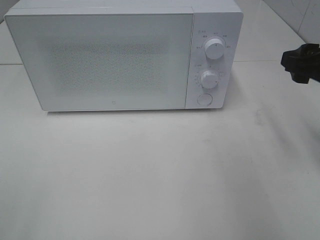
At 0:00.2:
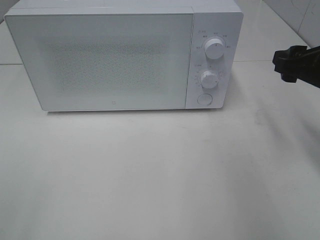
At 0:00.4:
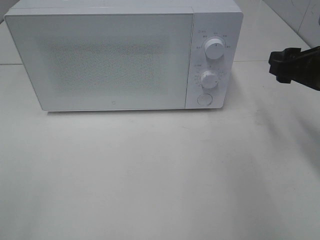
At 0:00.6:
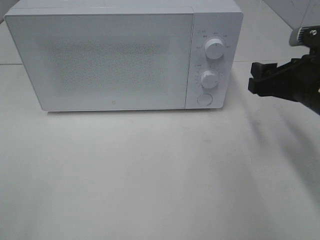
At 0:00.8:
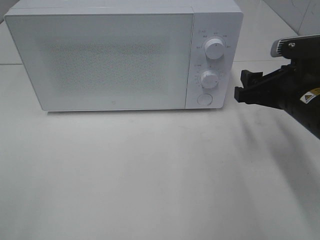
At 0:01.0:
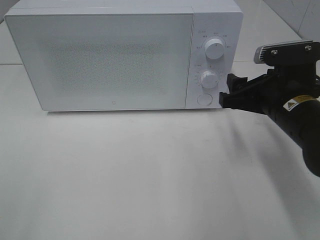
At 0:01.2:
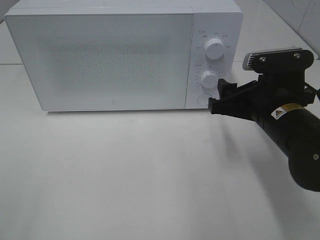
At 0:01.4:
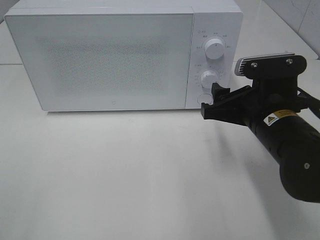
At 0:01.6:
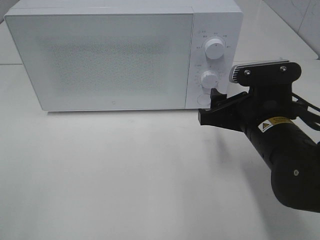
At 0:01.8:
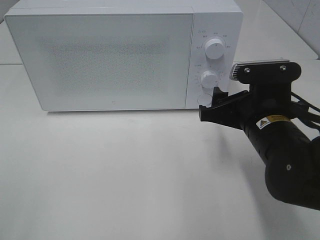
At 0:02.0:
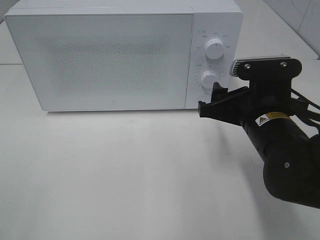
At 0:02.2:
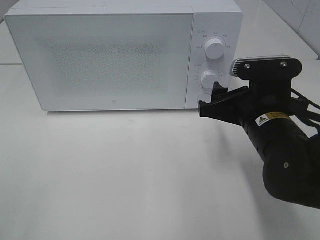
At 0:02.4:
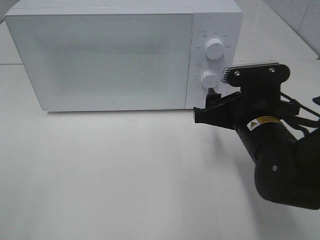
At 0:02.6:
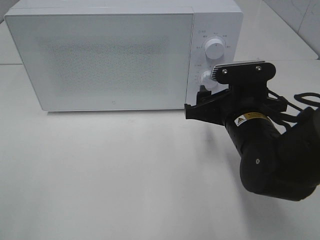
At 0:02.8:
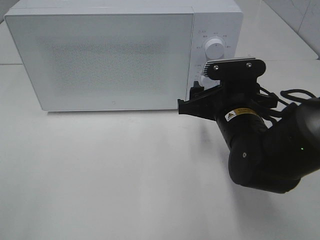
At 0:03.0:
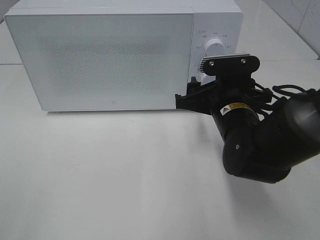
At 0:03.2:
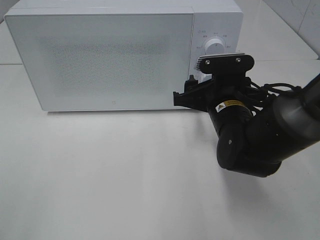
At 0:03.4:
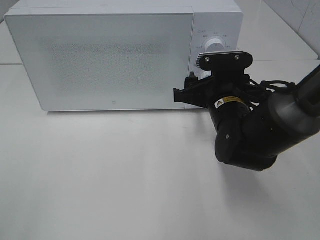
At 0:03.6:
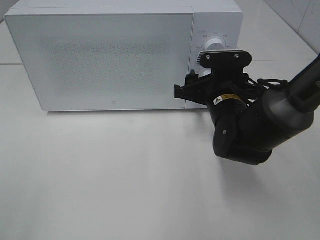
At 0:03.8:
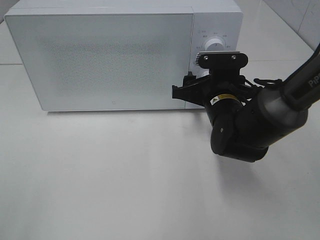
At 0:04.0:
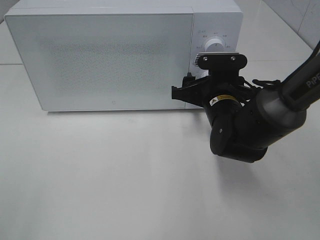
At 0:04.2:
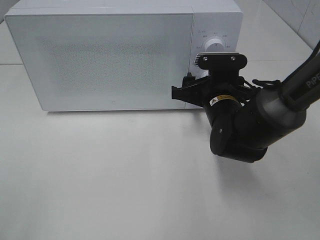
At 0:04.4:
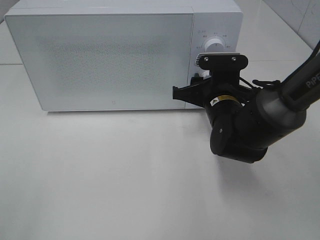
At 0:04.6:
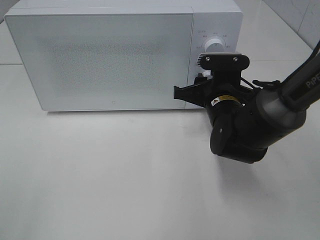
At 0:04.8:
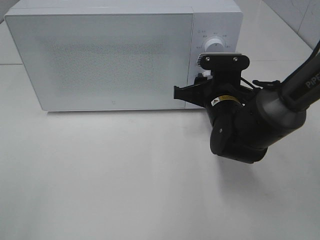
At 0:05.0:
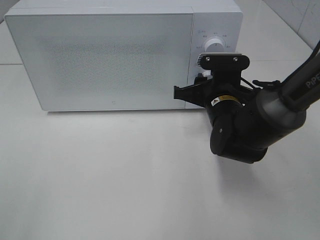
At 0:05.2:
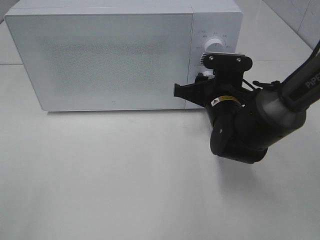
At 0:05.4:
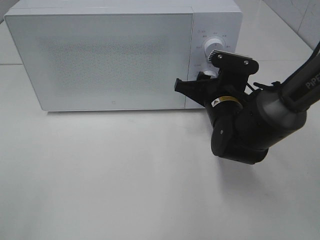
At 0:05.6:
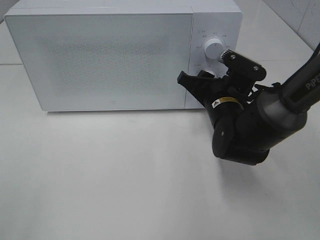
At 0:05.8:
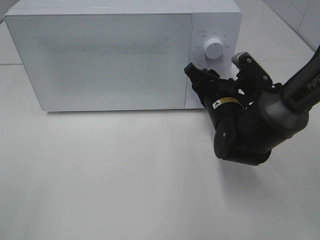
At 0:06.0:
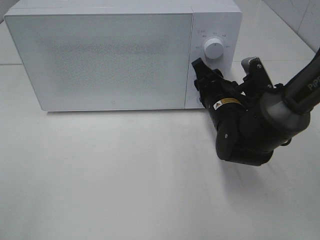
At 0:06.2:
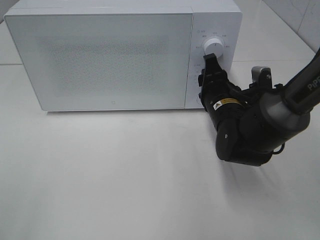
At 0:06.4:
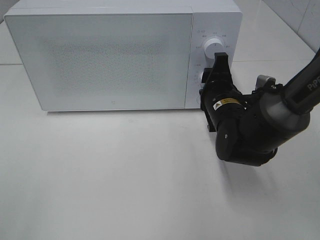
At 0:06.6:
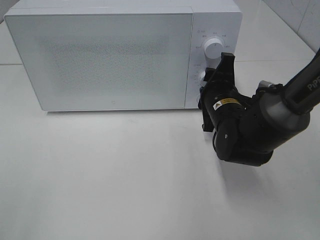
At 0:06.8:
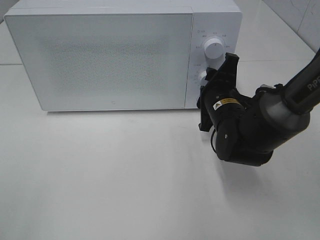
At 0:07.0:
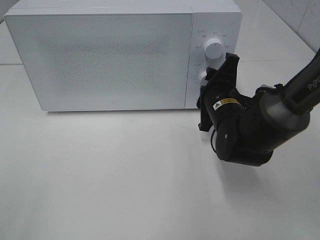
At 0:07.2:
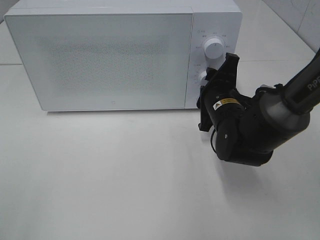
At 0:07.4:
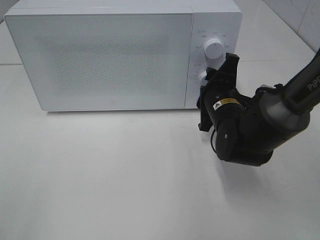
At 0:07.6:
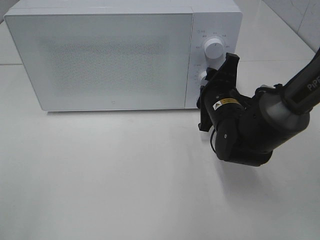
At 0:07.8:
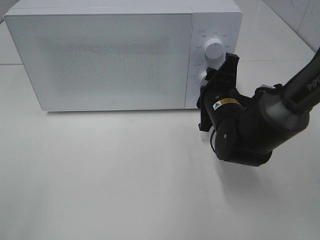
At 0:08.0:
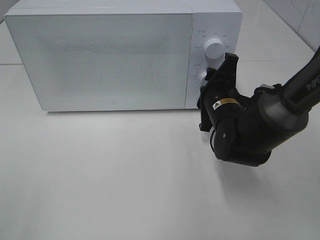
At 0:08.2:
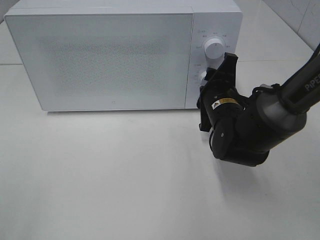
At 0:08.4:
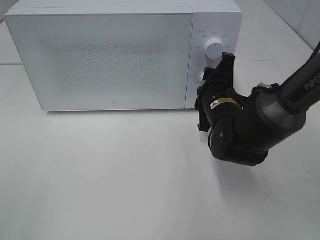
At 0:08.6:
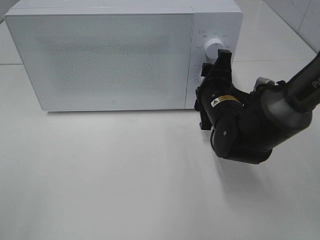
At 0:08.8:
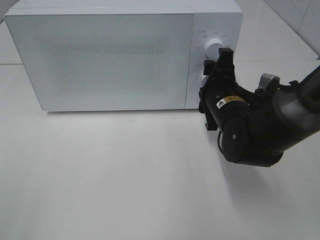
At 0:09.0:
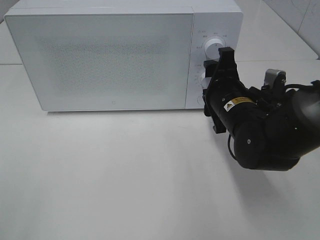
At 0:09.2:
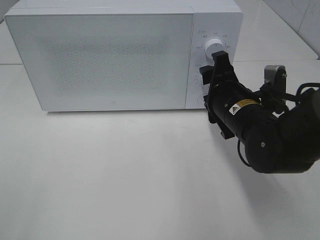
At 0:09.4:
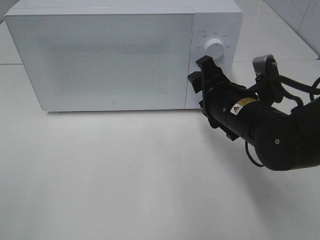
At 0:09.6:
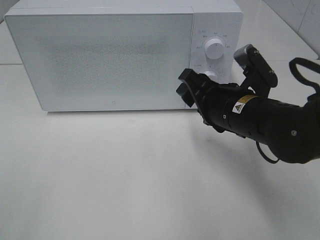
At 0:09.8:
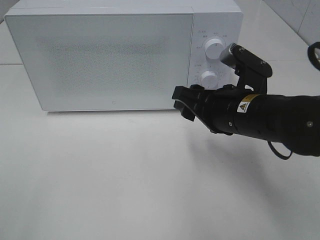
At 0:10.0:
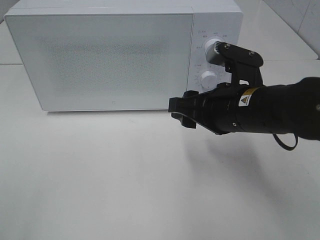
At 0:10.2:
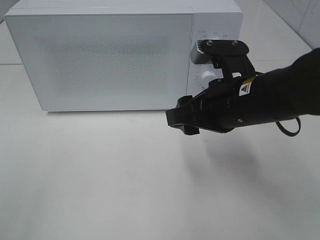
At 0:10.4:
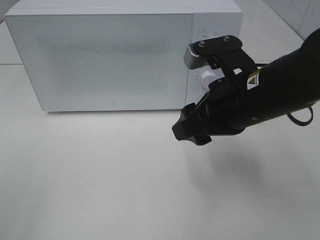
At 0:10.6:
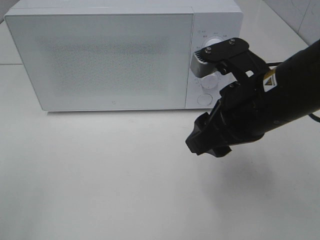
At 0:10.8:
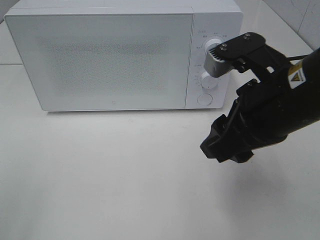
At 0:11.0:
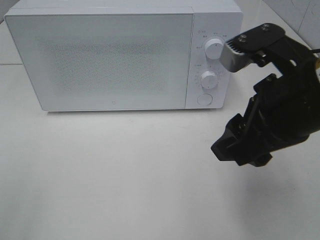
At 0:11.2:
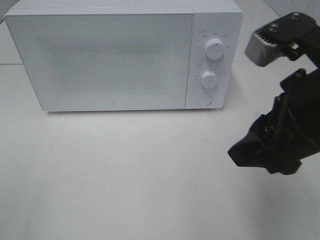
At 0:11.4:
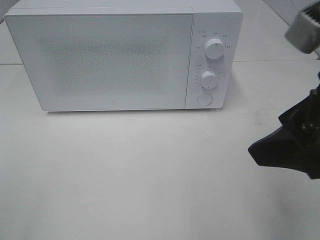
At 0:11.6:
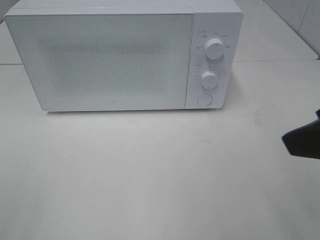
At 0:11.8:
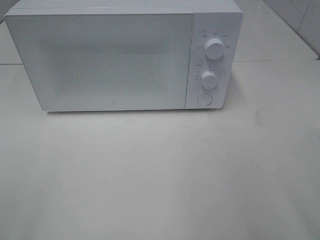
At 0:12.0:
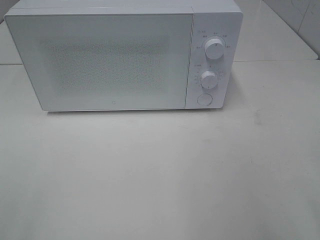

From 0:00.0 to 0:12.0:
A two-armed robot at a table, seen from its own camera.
Task of the whole recording: Heat the burger.
Step, from 0:00.0 to 0:08.8: Right hand: twist timer button.
From 0:00.0 to 0:01.6: The right gripper travels to the left and downward by some 15 cm.
From 0:01.6 to 0:03.0: The right gripper heads forward, covering about 5 cm.
From 0:03.0 to 0:04.4: The right gripper ends up roughly 5 cm from where it was.
From 0:09.0 to 0:10.4: The right gripper moves upward and backward, approximately 10 cm.
From 0:10.4 to 0:12.0: The right gripper heads backward, to the right and upward, covering some 25 cm.

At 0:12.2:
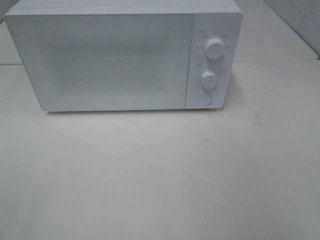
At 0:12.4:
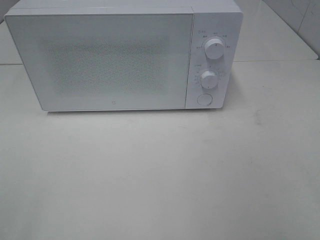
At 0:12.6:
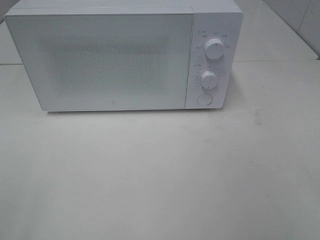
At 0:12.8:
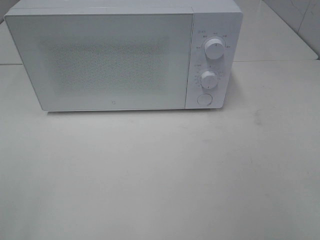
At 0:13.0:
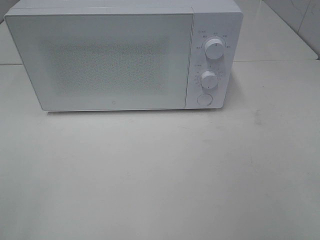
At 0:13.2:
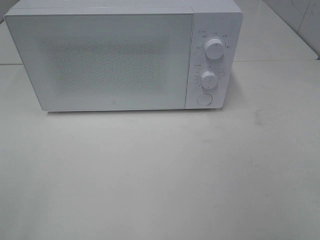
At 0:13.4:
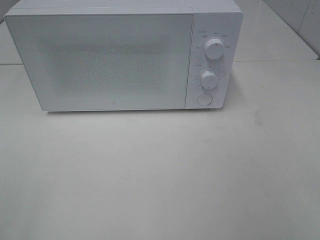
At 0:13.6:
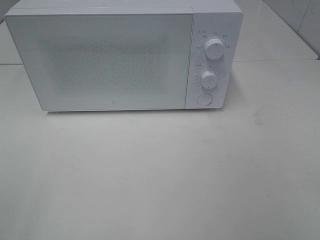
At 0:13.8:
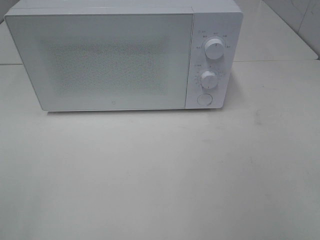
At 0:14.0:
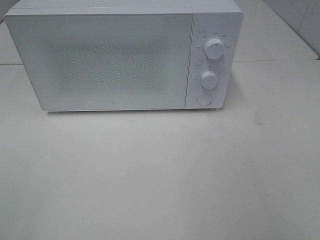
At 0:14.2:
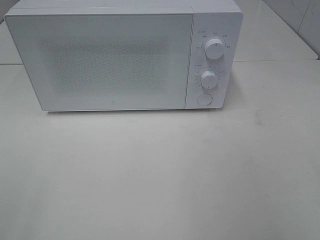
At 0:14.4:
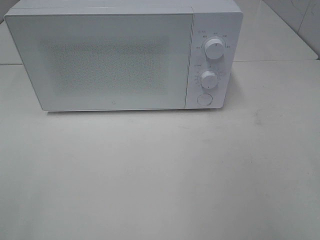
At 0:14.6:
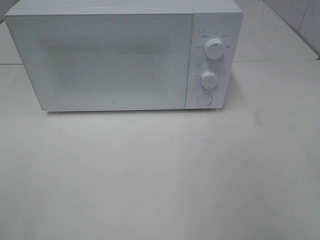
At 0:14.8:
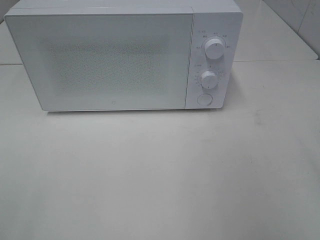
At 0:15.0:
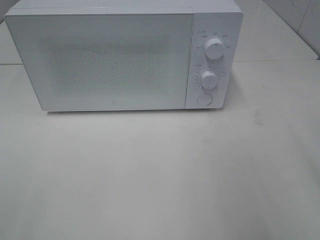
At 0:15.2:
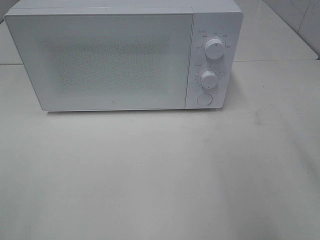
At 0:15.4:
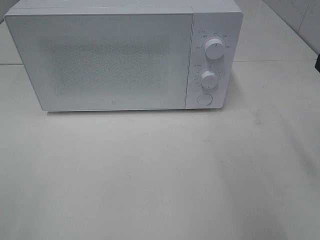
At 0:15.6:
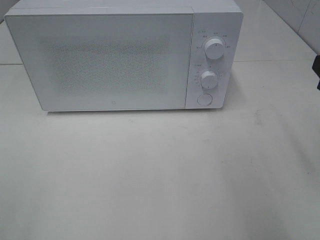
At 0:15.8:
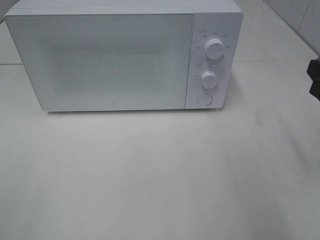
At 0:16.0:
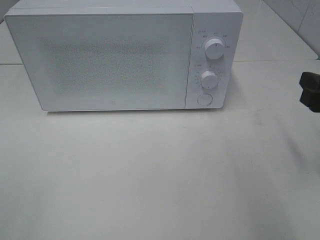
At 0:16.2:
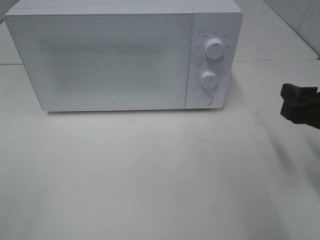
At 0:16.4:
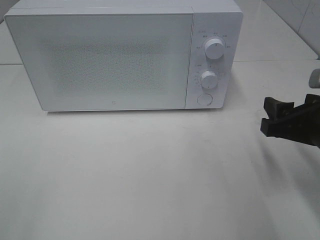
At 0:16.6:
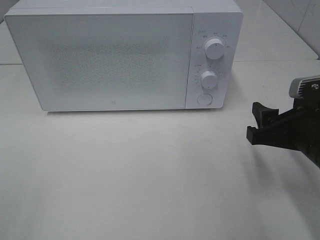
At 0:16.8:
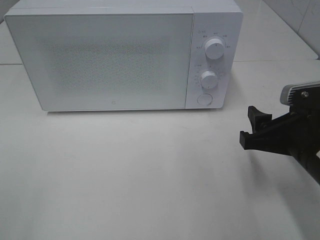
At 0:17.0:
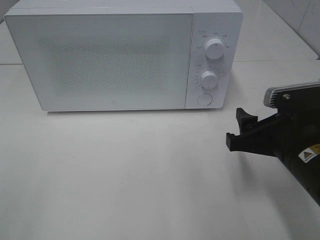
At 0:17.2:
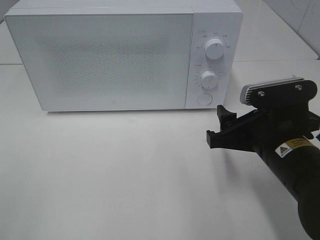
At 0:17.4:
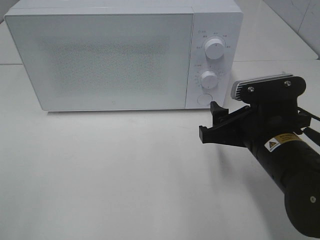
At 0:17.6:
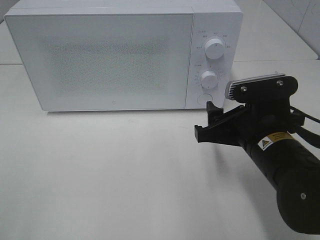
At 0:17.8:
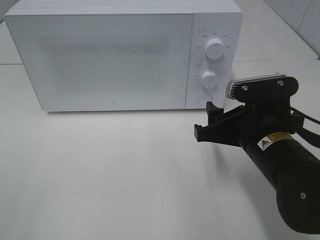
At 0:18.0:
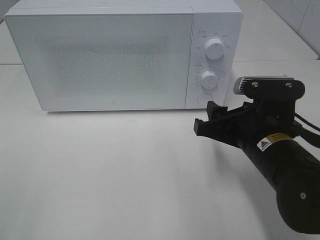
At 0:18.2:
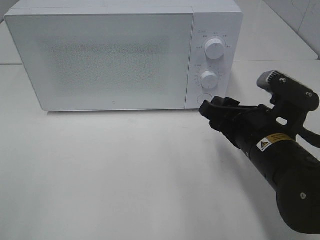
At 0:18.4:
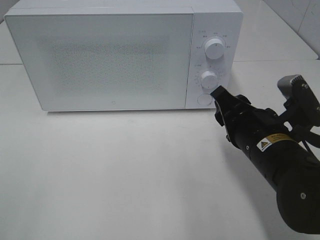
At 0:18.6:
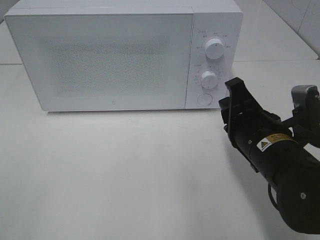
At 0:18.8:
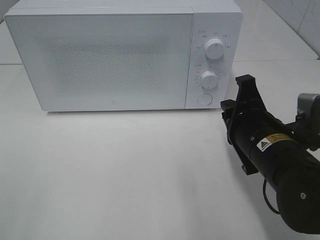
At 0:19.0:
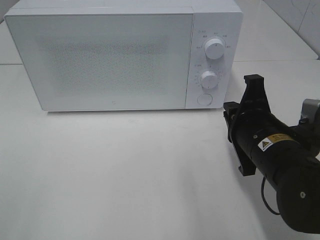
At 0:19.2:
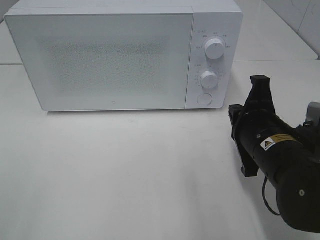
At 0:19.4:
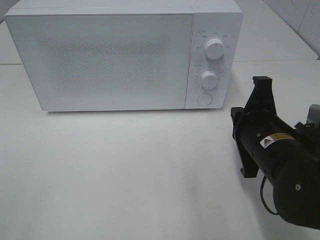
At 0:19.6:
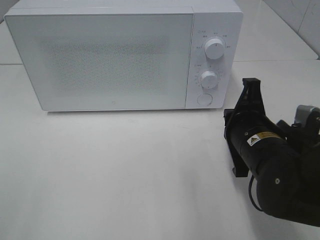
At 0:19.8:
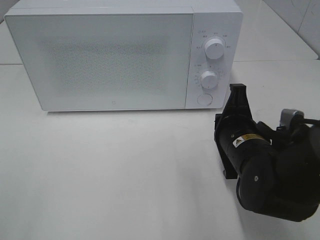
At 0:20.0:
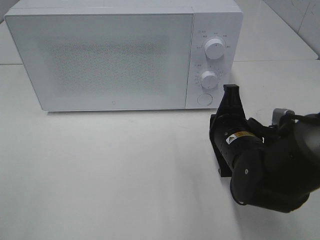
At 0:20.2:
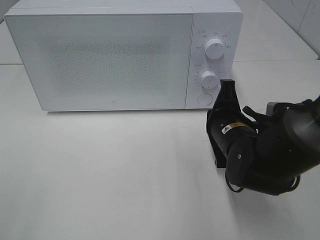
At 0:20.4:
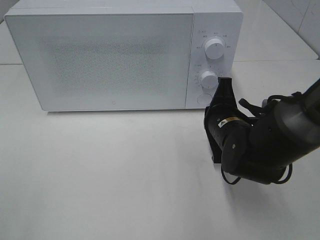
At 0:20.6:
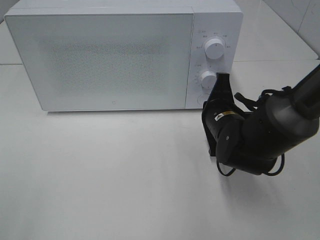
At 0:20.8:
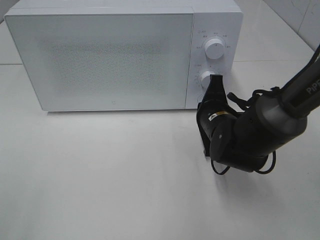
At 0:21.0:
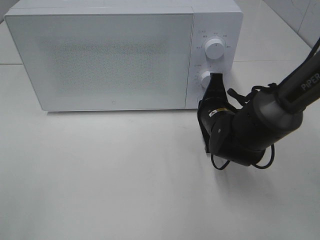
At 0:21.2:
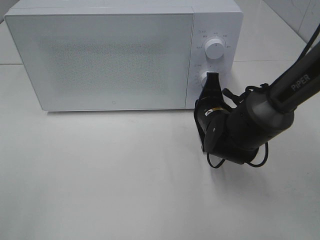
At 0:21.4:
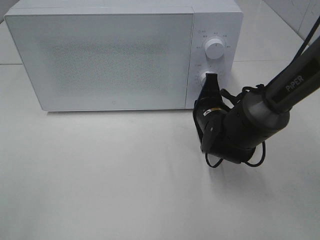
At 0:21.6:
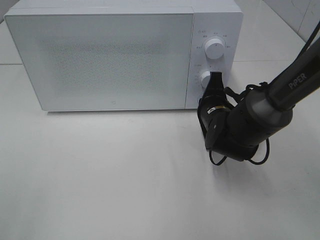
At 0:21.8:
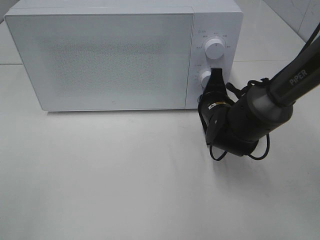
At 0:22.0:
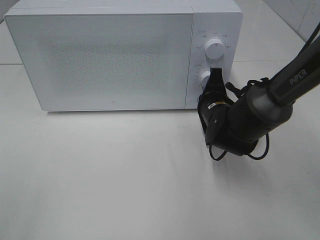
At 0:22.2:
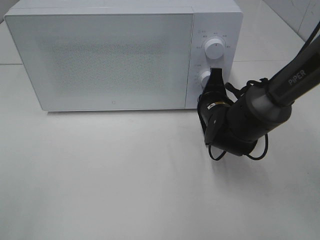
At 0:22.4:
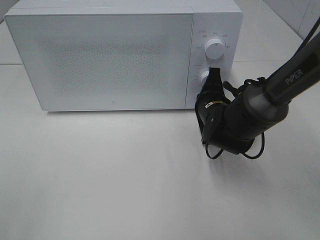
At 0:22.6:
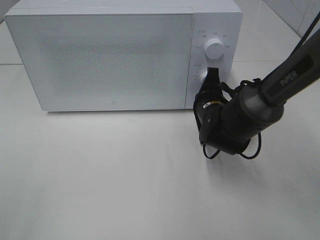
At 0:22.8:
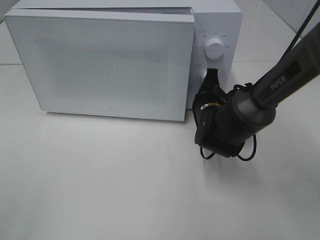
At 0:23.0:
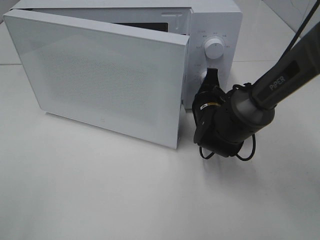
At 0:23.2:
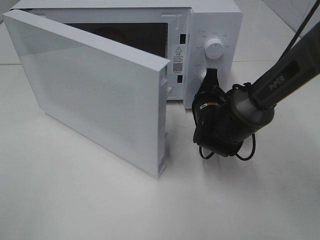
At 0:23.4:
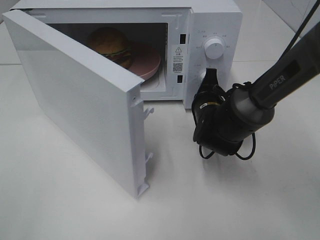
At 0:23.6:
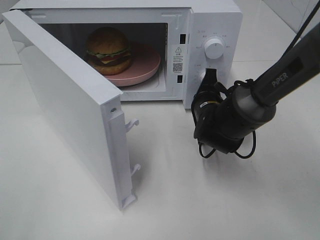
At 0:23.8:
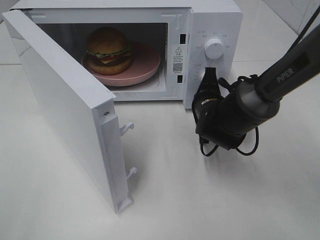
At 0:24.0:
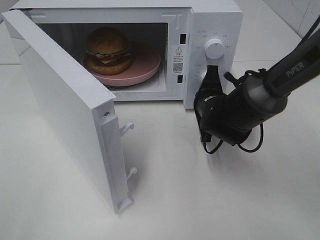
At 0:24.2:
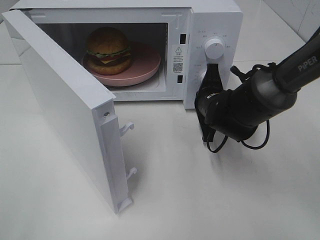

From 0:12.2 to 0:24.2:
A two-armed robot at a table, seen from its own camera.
Task of the whole recording: Heat the burger.
From 0:15.2 to 0:16.6: The right gripper moves downward and to the left, roughly 15 cm.
From 0:16.6 to 0:18.2: The right gripper heads to the left, covering roughly 5 cm.
From 0:18.2 to 0:19.8: The right gripper closes up.
From 0:19.8 to 0:21.2: The right gripper goes some 10 cm forward.
From 0:21.2 to 0:22.6: The grippers make only small movements.
